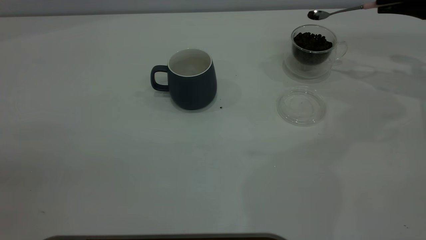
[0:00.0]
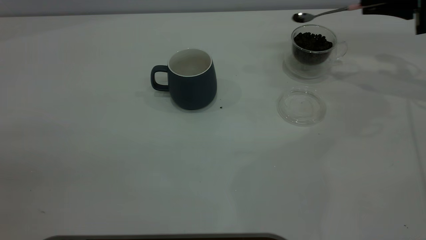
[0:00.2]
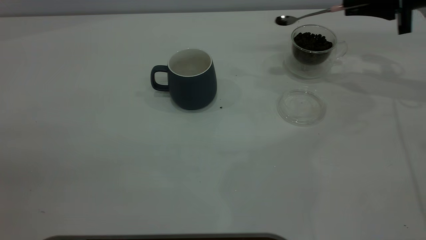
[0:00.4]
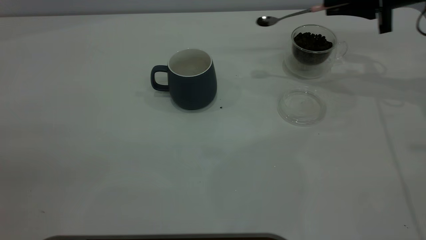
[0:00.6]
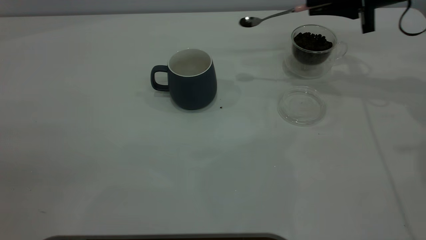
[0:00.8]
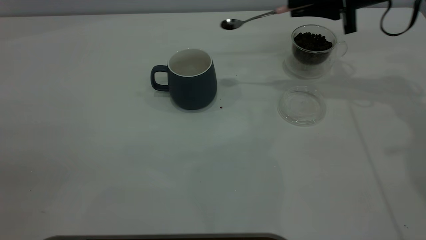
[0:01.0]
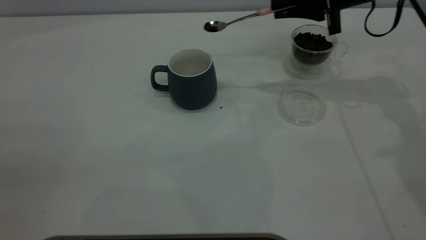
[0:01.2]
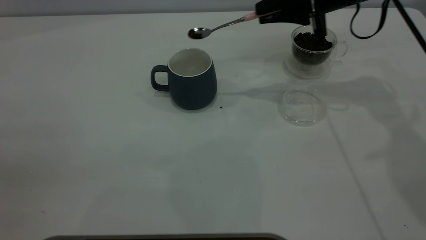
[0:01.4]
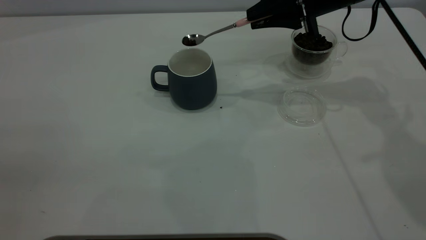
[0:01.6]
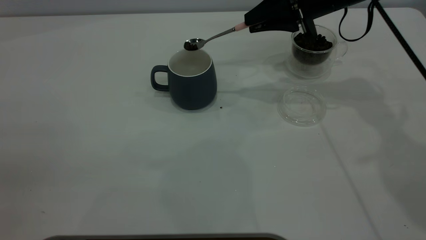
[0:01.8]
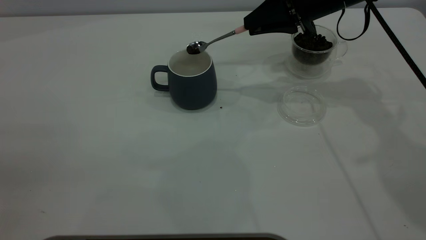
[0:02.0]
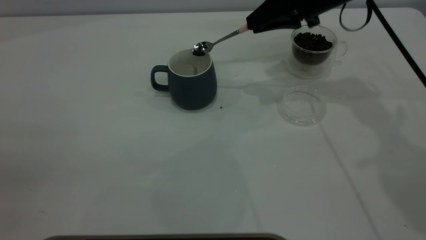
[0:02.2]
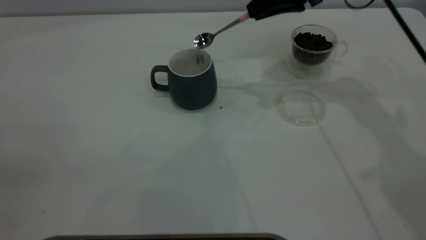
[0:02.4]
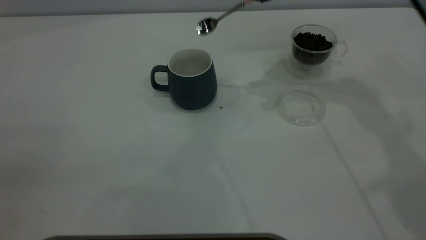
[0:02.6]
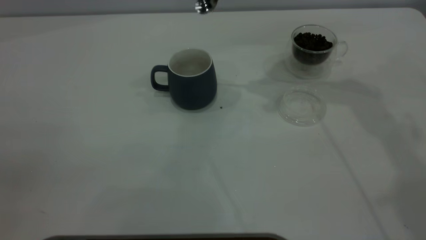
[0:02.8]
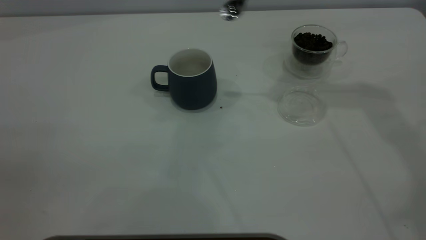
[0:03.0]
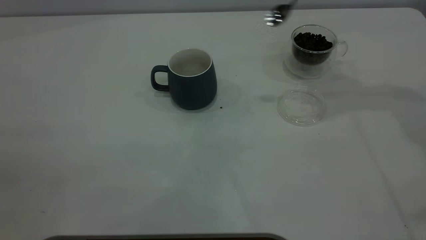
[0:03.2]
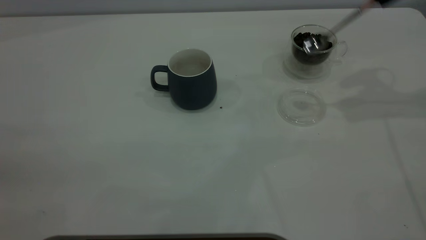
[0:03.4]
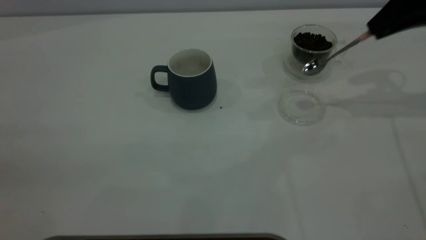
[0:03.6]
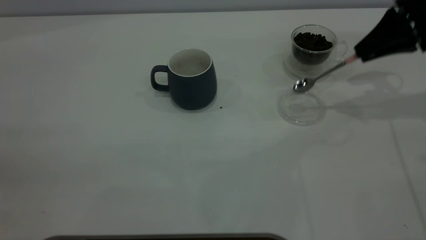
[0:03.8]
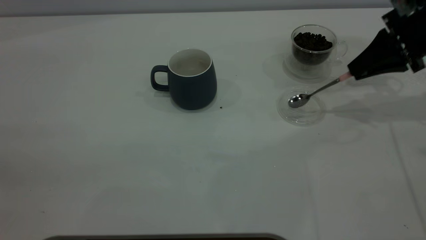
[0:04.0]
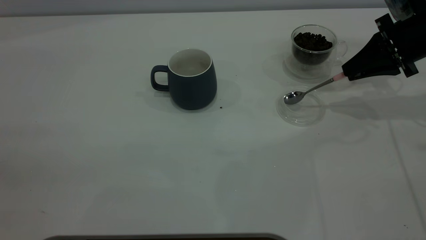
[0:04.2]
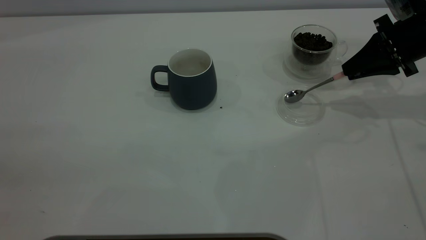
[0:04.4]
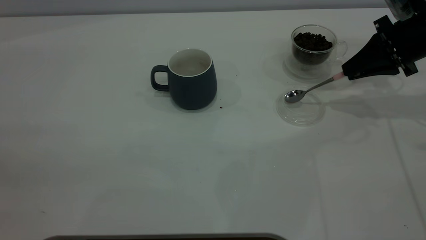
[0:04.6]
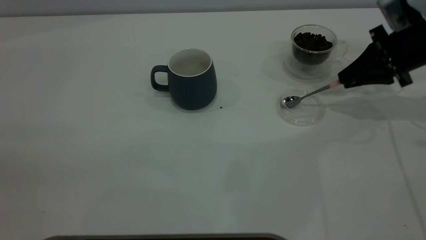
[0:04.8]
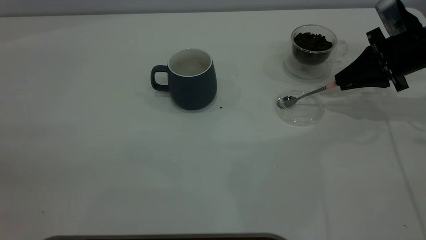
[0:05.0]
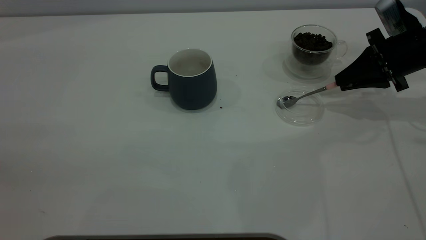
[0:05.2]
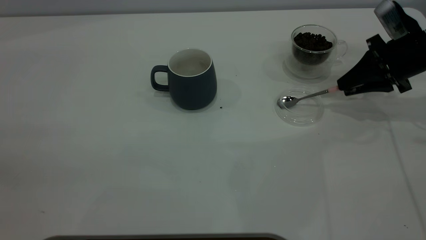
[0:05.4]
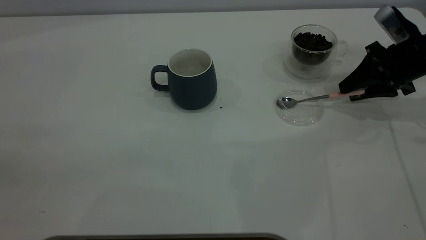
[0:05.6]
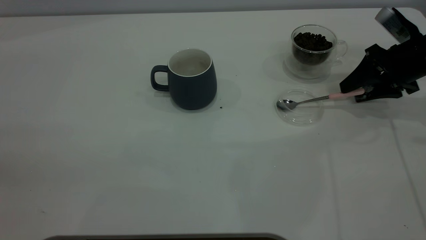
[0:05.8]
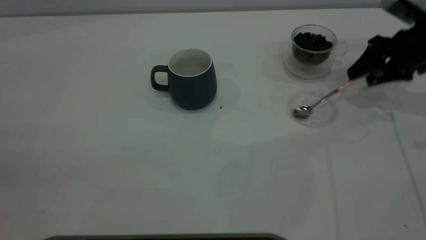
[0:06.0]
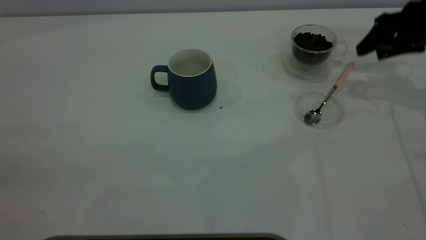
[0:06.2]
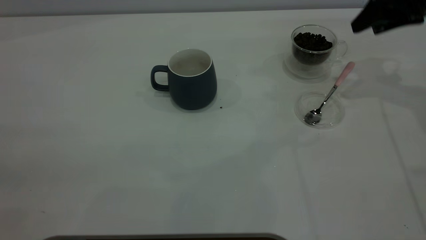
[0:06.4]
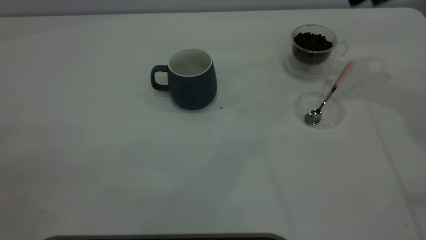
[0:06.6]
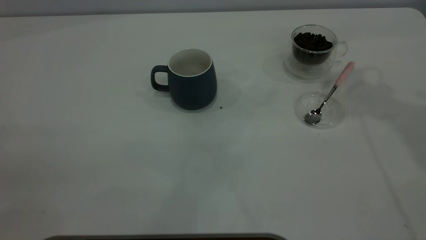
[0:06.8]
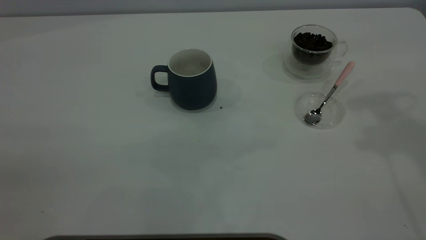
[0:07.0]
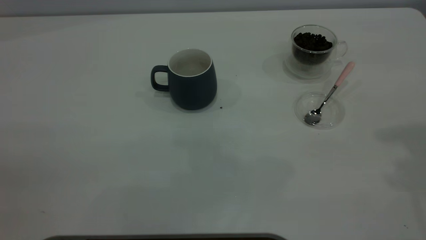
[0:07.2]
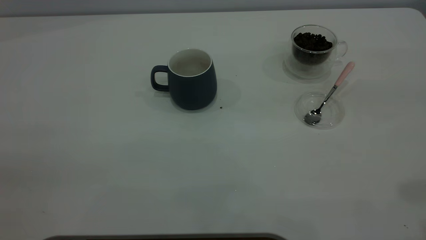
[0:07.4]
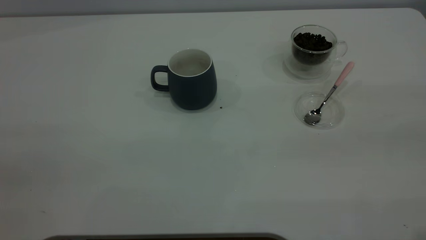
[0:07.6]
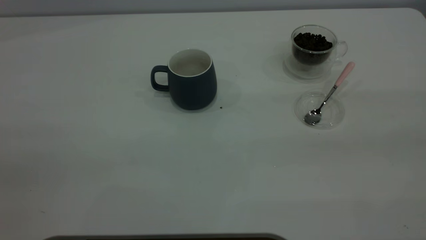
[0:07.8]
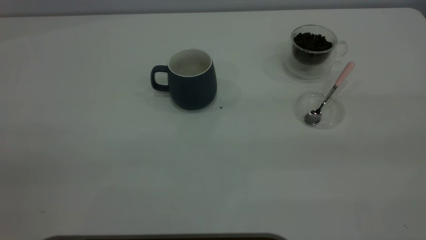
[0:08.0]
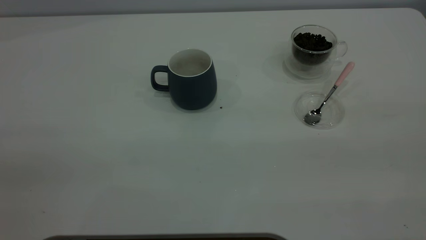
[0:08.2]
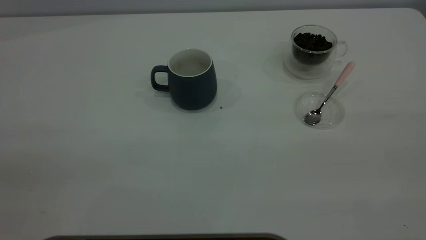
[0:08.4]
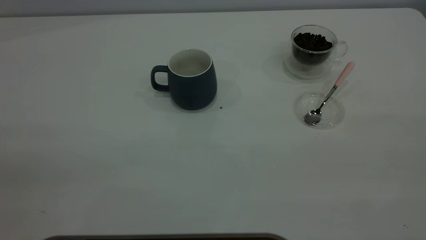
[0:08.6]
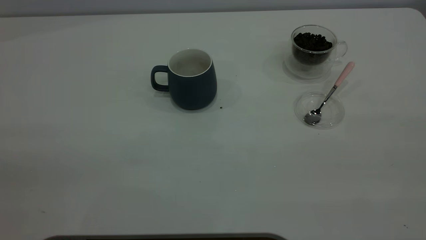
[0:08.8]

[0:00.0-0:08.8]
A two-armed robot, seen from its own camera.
Task of the whole recording: the left gripper place the grey cup in the center of the table, the right gripper take the pink spoon from the cup lid and scoop out the coffee beans from the coffee cup and put them into the grey cup, the right gripper put the spoon back into the cup lid.
Step, 0.0 to 2.4 s: Scoop a spoonful of beans into the cup.
Step, 2.6 to 6.2 s: Place the spoon back in its original place.
0.0 to 1.4 s: The right gripper goes about 20 cm to the left.
1.4 to 3.0 s: The right gripper travels upward by approximately 15 cm.
3.0 to 4.4 s: The right gripper moves downward and to the right, roughly 20 cm.
4.4 to 5.8 s: The right gripper opens its fingers.
5.8 to 7.4 s: The right gripper travels upward and backward by roughly 40 cm.

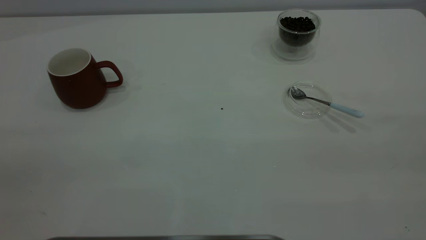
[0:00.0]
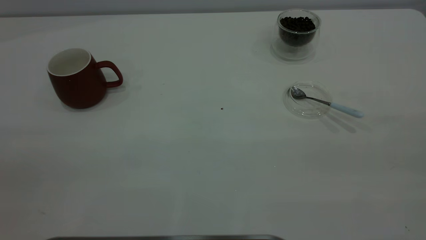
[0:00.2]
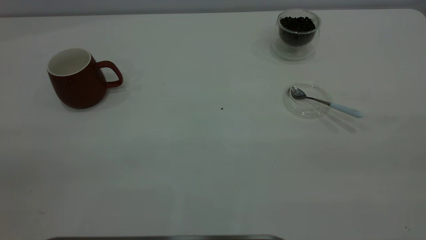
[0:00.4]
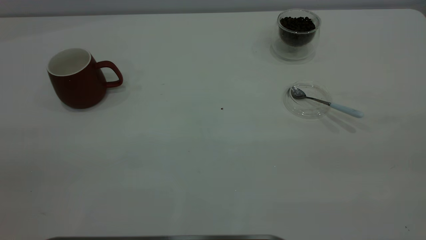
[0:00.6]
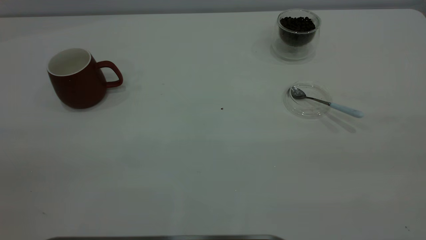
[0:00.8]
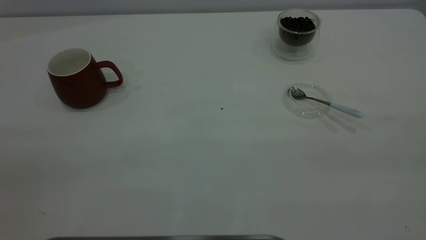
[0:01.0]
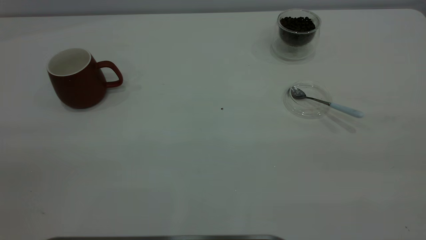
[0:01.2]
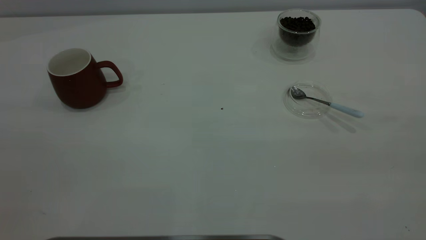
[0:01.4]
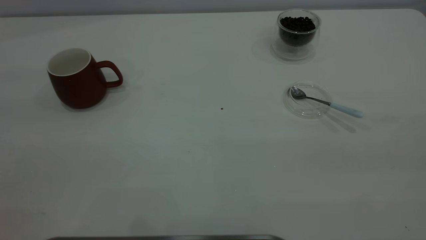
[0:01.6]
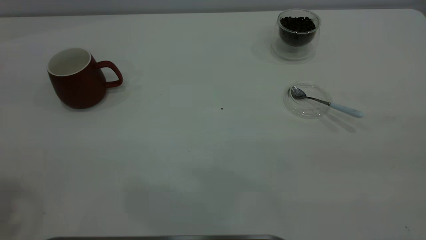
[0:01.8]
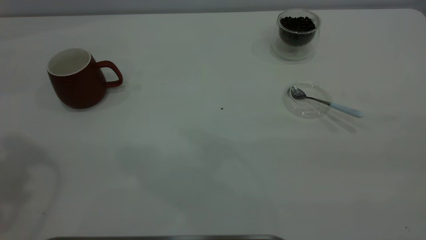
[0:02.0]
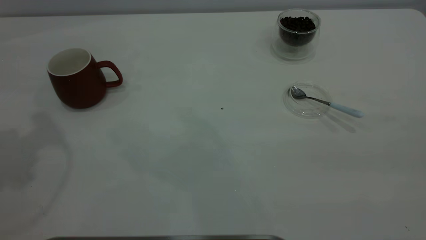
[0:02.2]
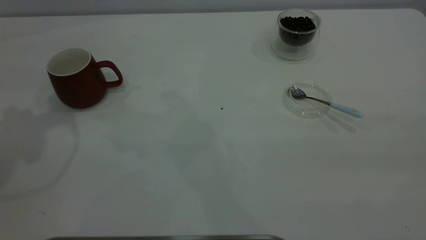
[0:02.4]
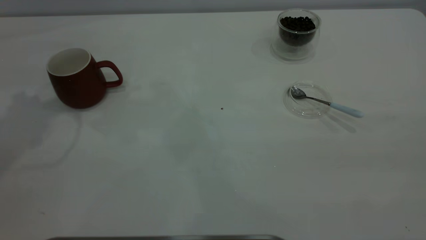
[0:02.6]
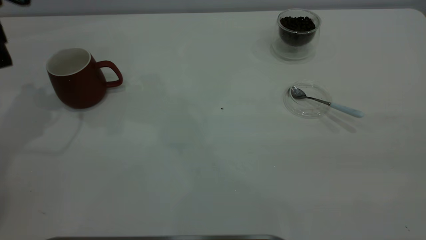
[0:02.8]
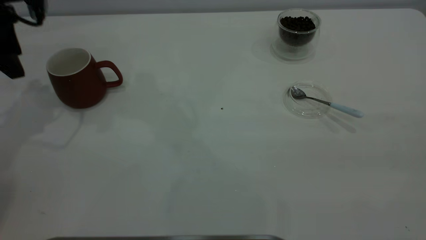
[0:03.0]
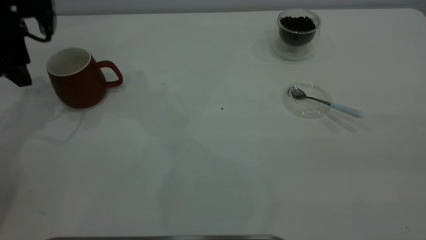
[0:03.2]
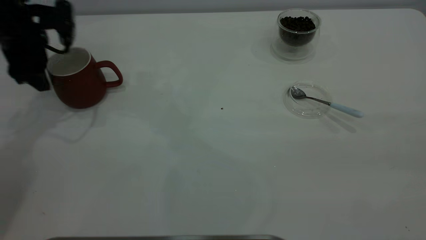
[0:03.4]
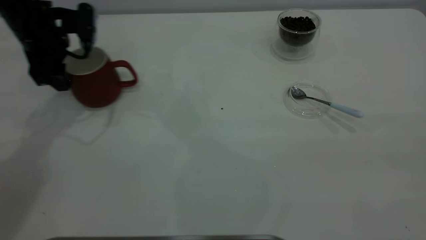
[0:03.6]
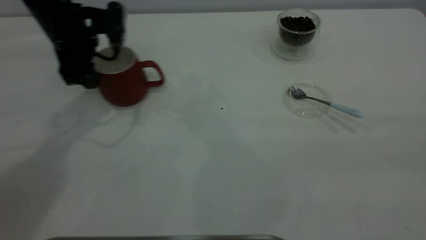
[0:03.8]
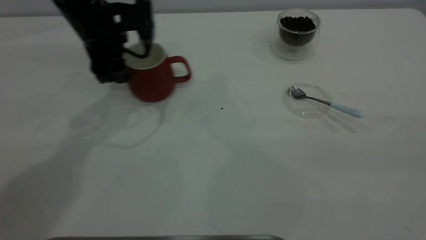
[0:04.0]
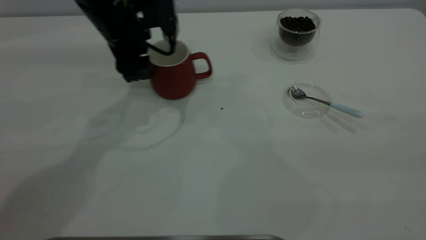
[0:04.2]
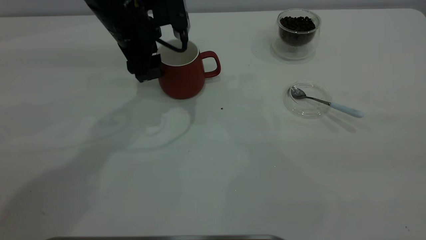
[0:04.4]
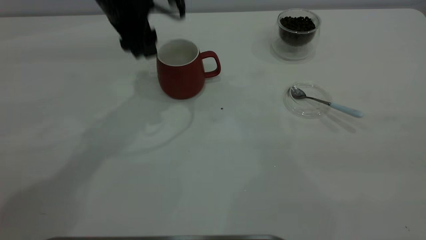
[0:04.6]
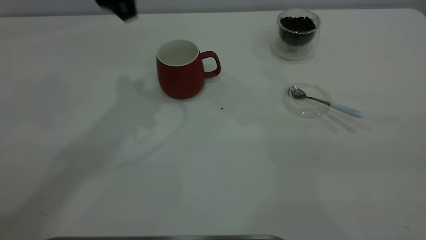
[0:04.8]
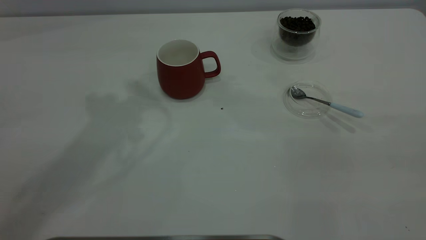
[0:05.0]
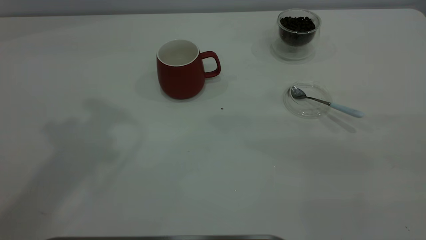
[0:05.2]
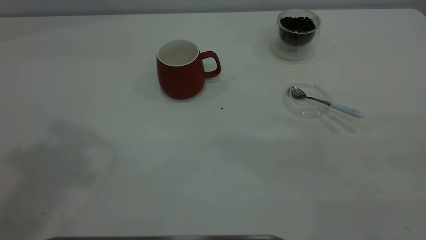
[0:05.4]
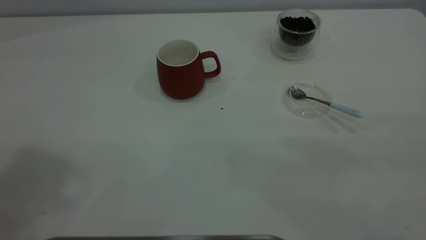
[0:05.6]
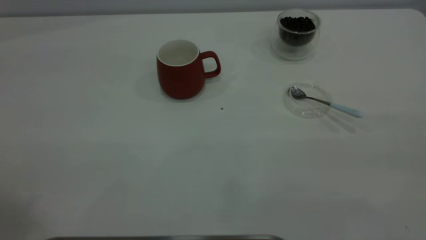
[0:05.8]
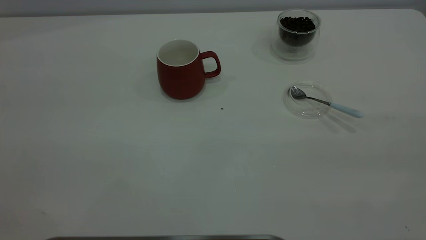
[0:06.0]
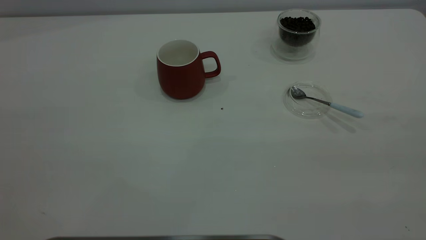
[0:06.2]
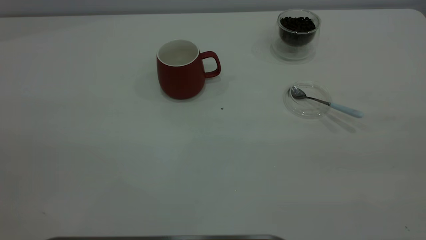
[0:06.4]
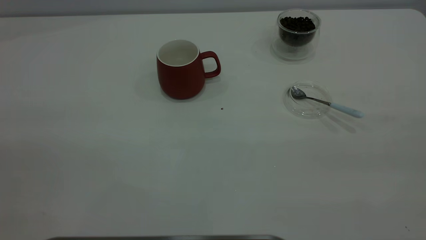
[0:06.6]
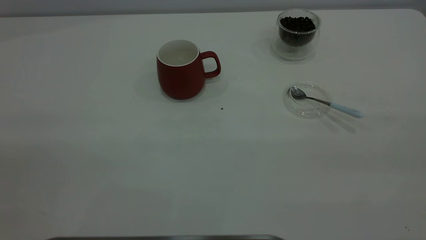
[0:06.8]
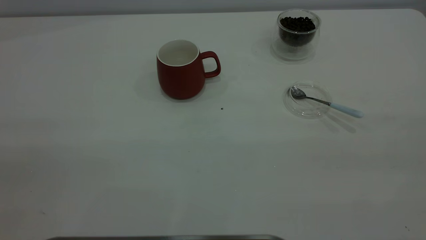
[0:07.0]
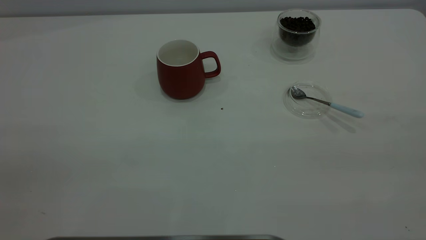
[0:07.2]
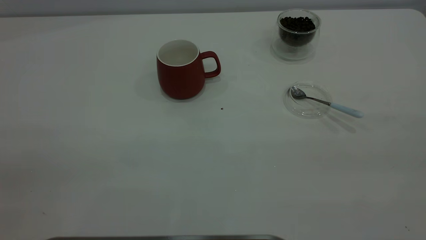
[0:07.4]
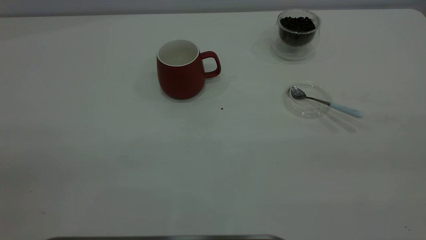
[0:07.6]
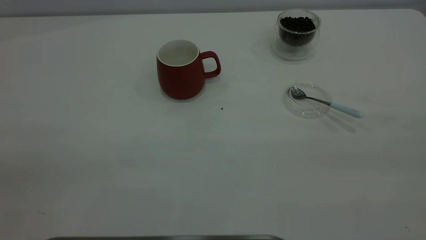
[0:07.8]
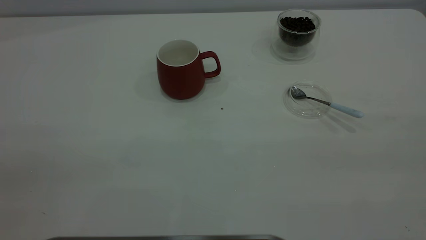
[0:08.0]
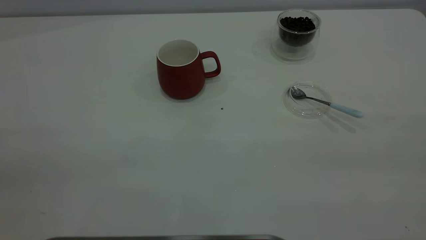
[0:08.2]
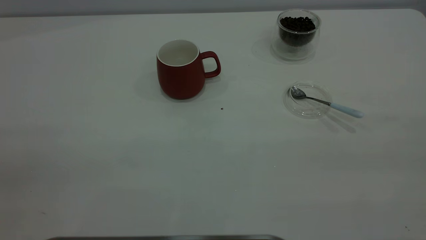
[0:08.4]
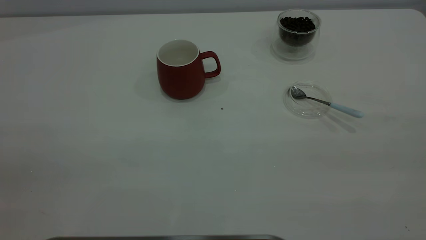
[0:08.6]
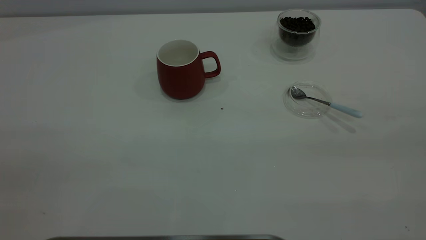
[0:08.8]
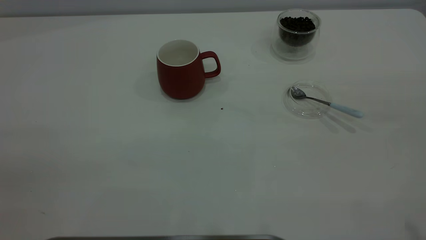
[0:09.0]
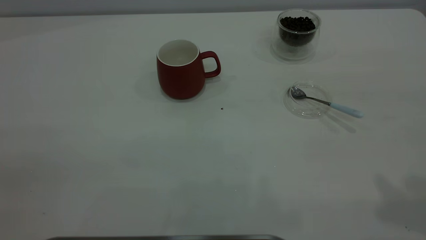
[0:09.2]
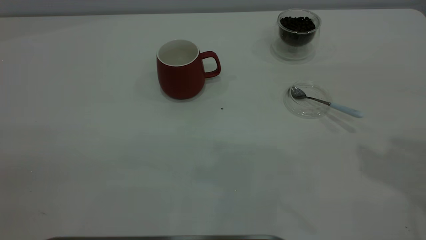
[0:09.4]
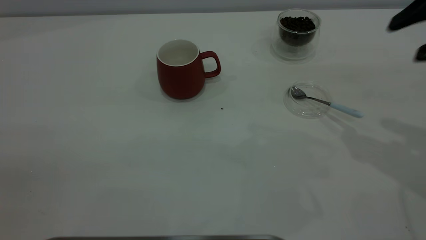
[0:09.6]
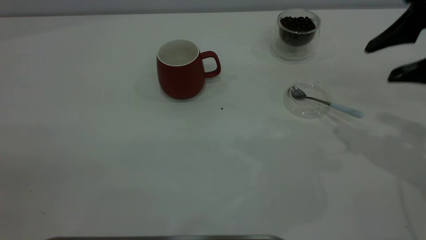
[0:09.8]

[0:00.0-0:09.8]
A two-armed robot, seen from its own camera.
Task of the whole recording: the left gripper place the red cup in the center of the table, the right gripper take the blue spoon from the cup lid and scoop out the coffee beans from the coffee cup and put them into the red cup, the right gripper put the spoon back into the cup lid.
Step, 0.0 to 4.6 s: Move the cup to the center of view.
2.8 to 4.2 s: The left gripper shifts some 20 cm to the right.
4.2 to 5.6 s: The left gripper heads upward and backward, covering about 40 cm.
7.0 to 8.4 s: Both grippers stay about where they are.
8.4 to 9.8 s: The right gripper moves forward and downward, roughly 30 cm.
